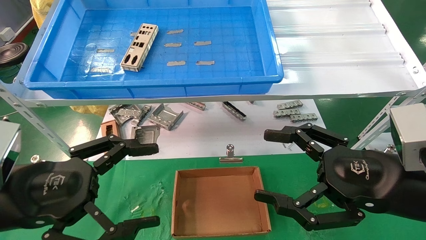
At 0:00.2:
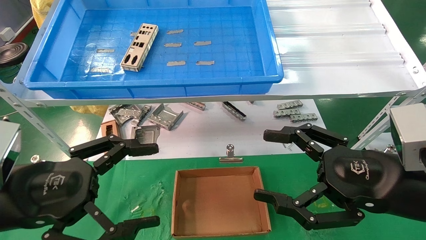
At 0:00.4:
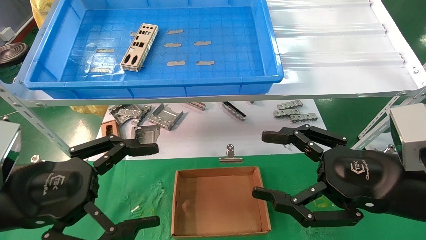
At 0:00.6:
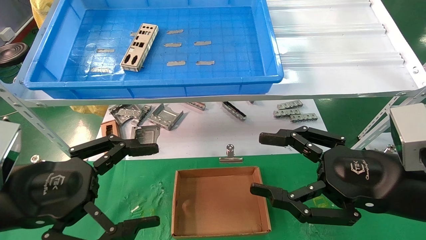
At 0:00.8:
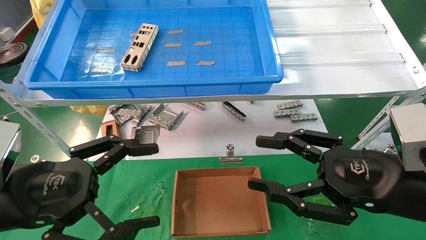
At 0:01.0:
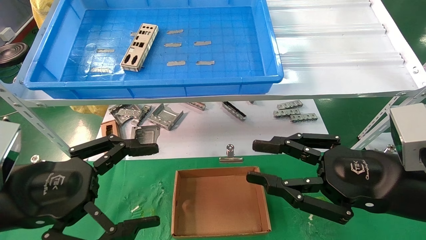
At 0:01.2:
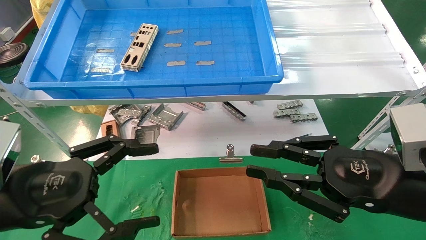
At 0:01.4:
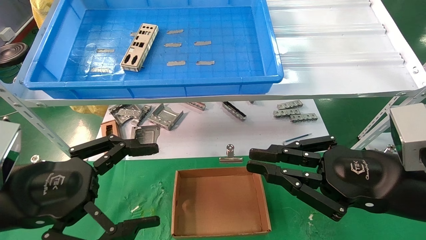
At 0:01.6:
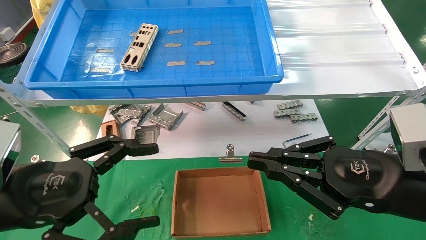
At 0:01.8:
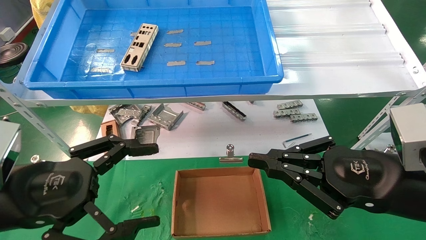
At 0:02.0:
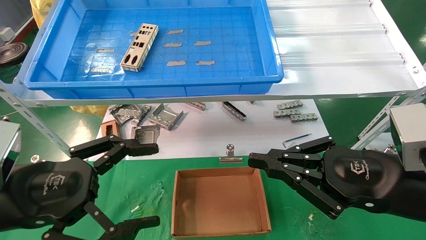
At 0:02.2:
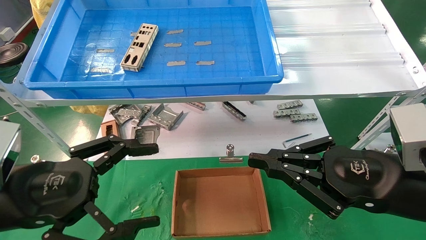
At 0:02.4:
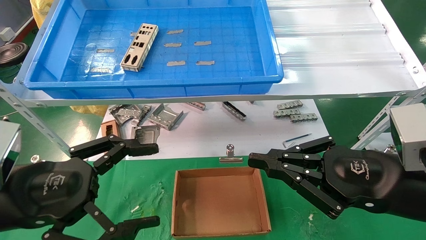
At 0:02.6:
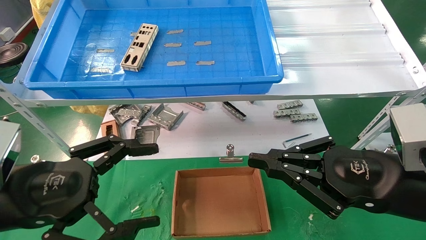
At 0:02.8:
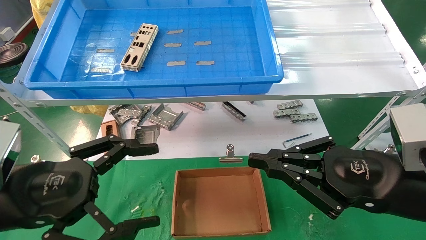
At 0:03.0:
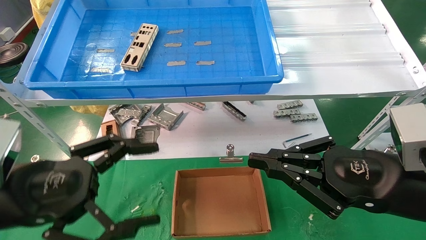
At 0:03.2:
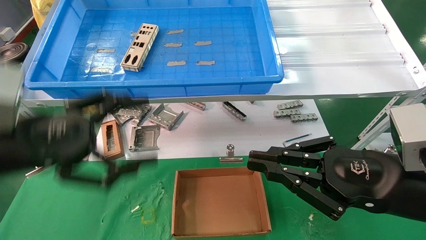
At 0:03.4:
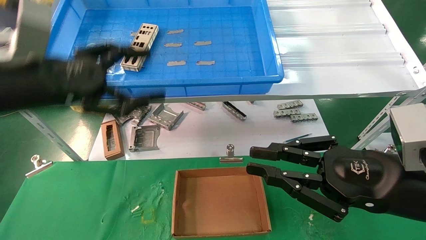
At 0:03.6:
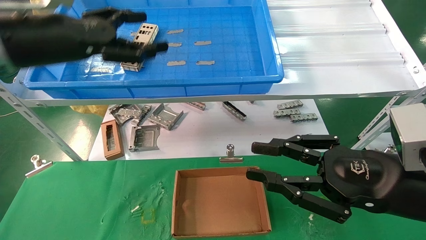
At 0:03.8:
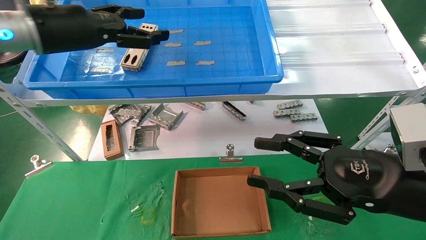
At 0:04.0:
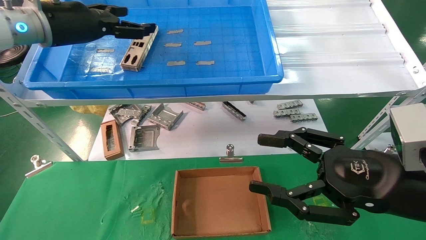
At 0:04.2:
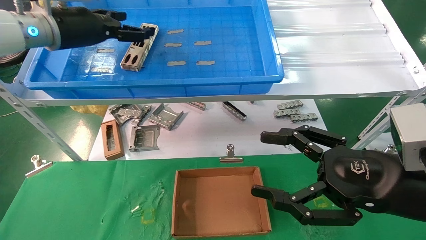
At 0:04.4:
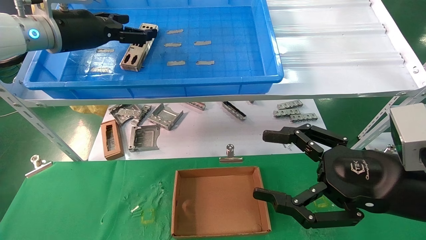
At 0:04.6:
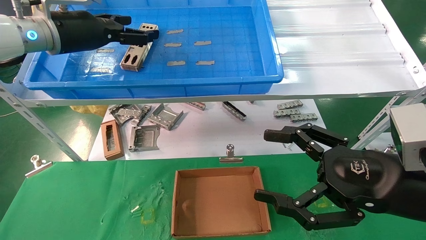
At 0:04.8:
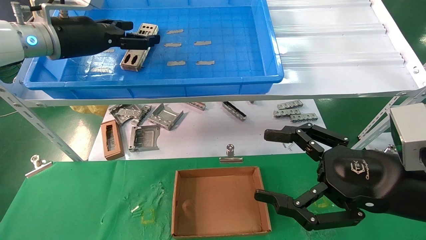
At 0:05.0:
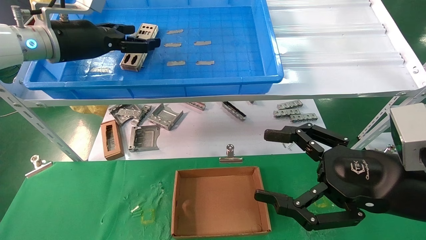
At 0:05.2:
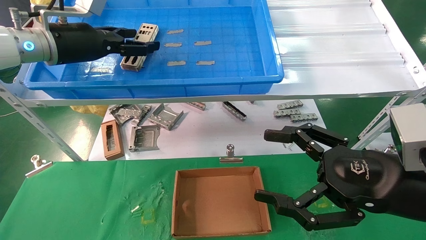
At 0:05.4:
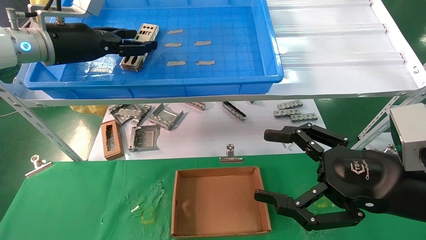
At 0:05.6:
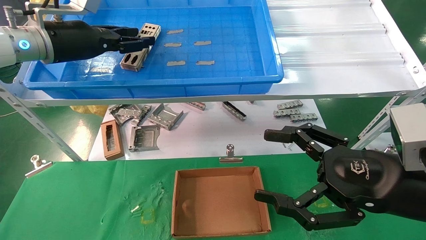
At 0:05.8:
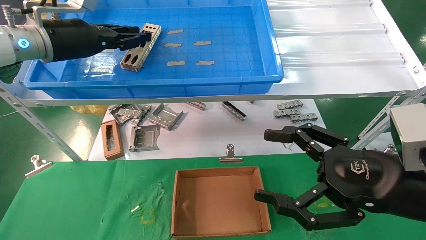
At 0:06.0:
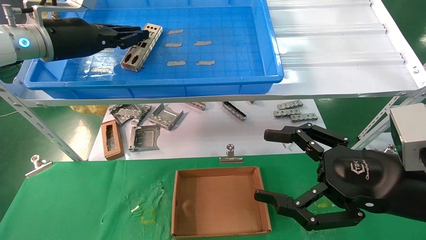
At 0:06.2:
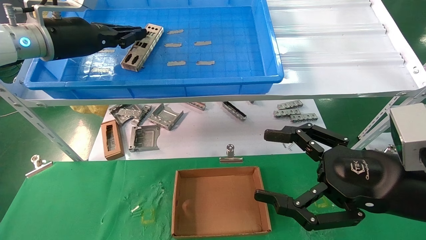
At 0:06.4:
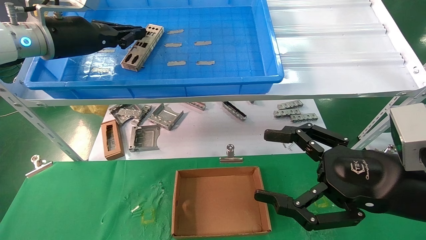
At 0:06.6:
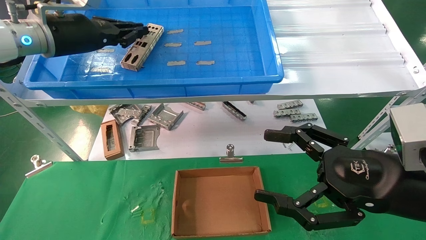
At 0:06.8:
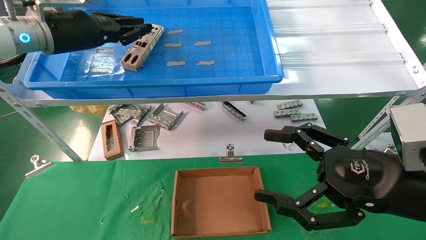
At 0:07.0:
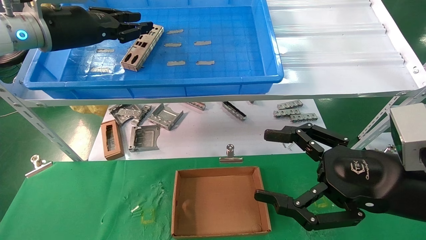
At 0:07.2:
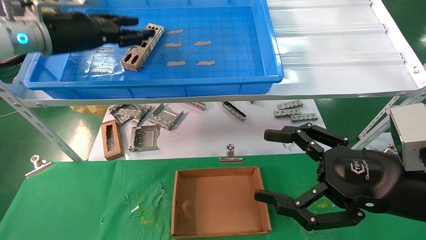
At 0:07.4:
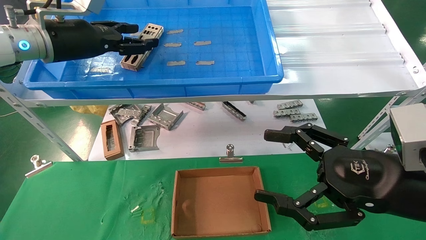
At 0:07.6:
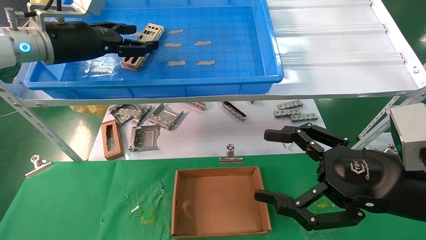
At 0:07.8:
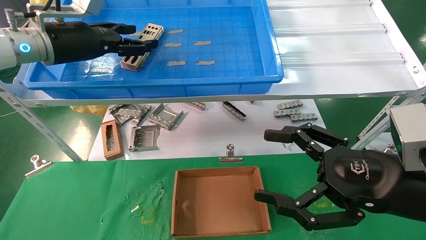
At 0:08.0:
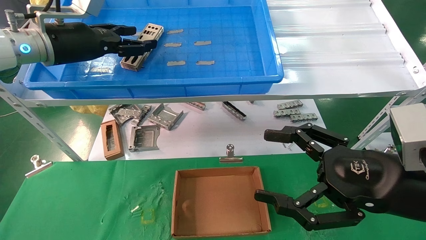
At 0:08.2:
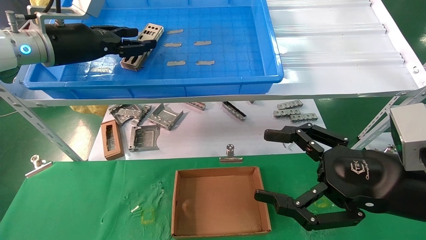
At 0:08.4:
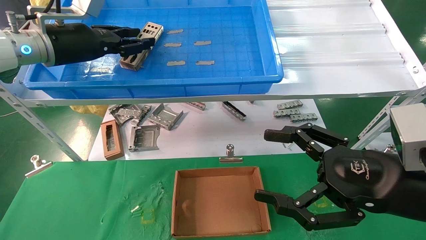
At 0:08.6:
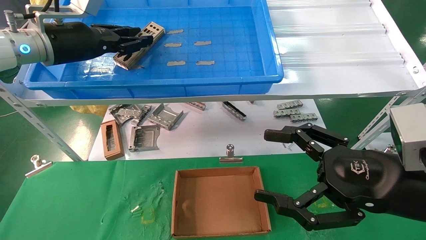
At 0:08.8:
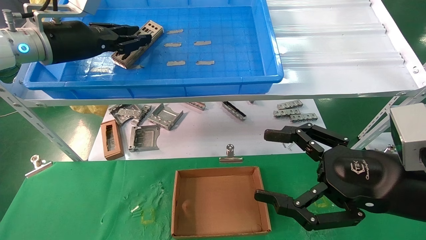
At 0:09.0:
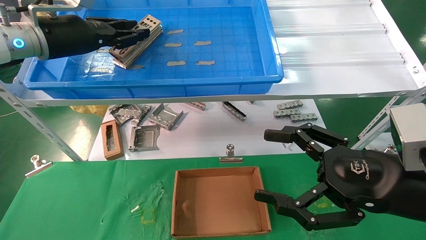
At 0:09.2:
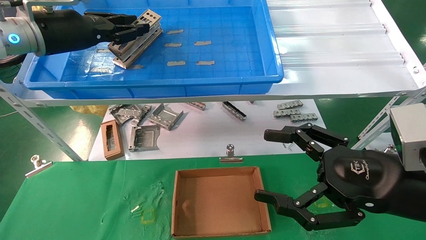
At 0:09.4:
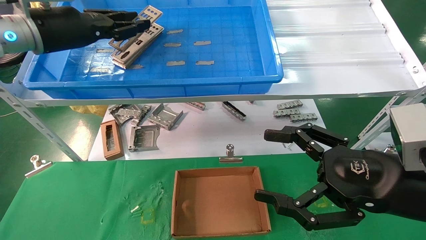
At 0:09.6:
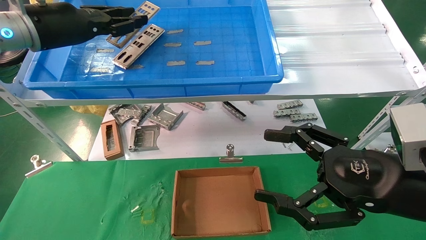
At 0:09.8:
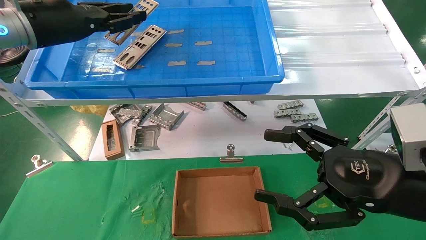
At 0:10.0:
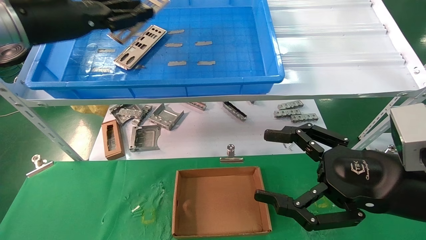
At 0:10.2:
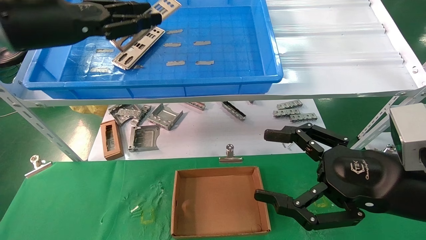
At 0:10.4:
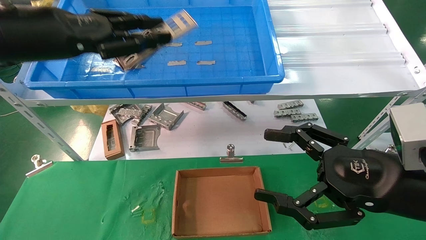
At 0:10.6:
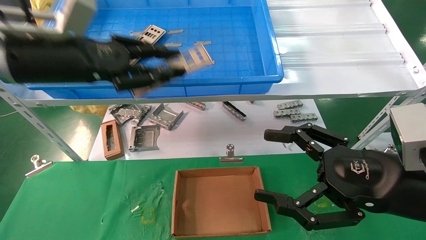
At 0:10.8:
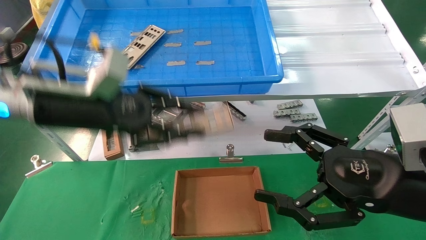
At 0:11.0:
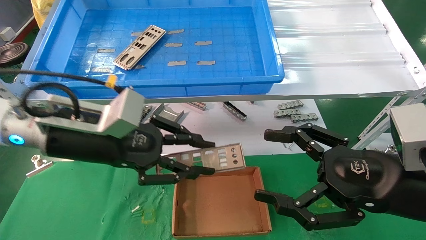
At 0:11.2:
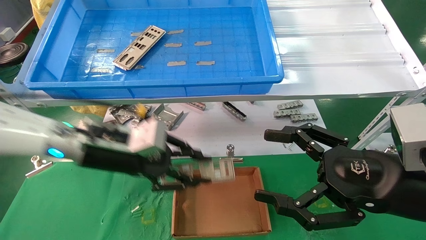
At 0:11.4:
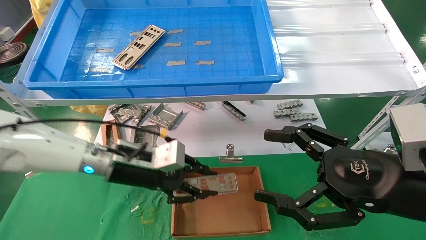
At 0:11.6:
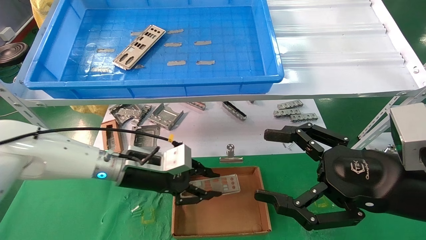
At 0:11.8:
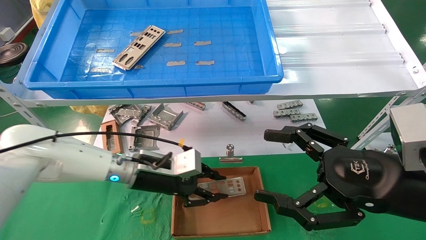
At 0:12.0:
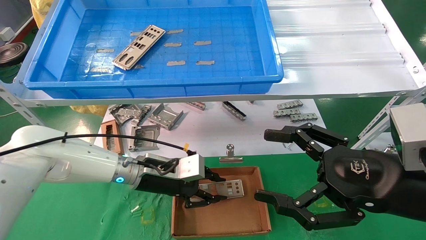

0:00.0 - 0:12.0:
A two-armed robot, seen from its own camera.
Task of the whole recording: pick up the parts on the tray and put them in the cardboard box.
Step, 0:03.6 - 0:08.6: Pick up the IO bracket from the container box.
0:00.0 - 0:01.6: The right gripper closes up.
0:01.6 - 0:03.0: There are only small adjustments of the grippers.
0:03.0 - 0:04.4: The right gripper opens; the left gripper travels forward and upward by about 25 cm.
0:04.4 - 0:06.0: The left gripper closes its fingers.
0:06.0 - 0:07.6: The left gripper opens.
0:07.6 - 0:09.0: The left gripper closes.
0:09.0 - 0:10.4: The left gripper heads backward, covering approximately 10 cm.
0:10.4 - 0:12.0: The left gripper moves downward and to the right, roughly 30 cm.

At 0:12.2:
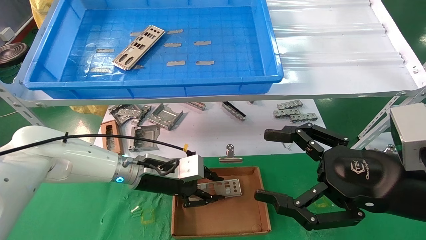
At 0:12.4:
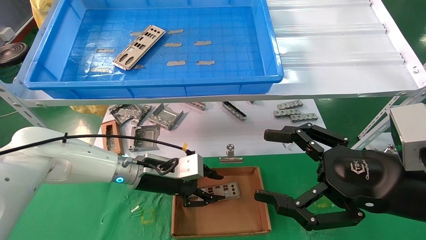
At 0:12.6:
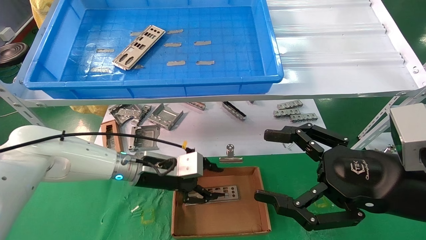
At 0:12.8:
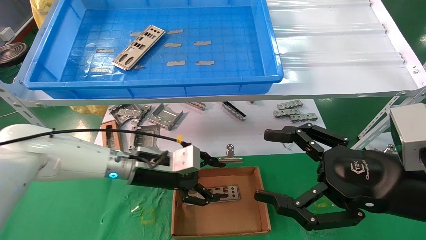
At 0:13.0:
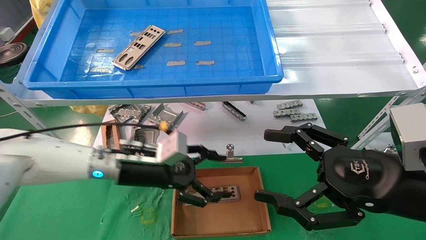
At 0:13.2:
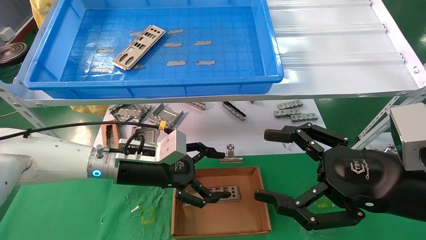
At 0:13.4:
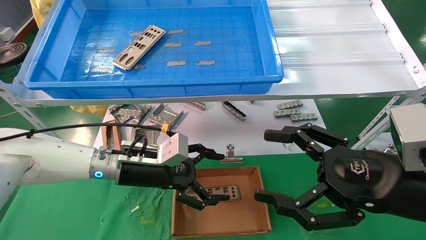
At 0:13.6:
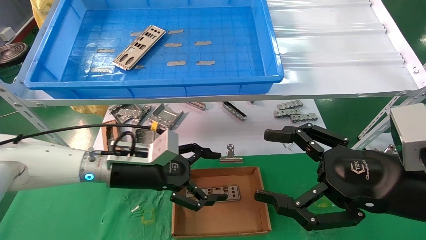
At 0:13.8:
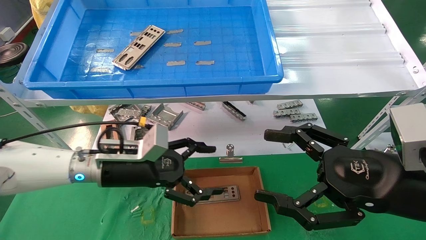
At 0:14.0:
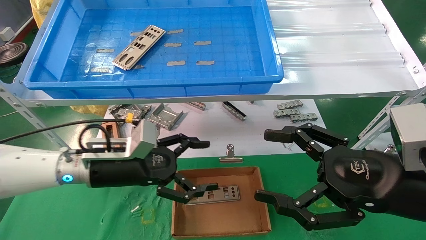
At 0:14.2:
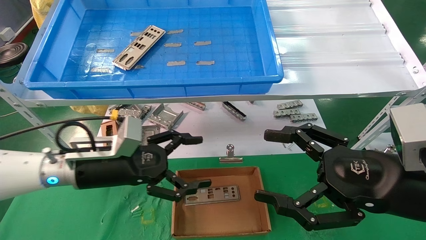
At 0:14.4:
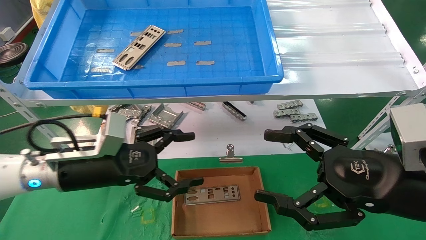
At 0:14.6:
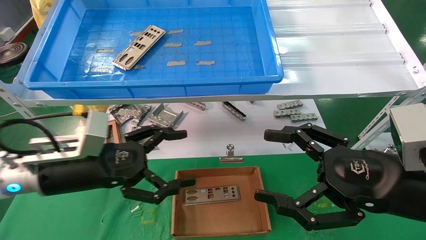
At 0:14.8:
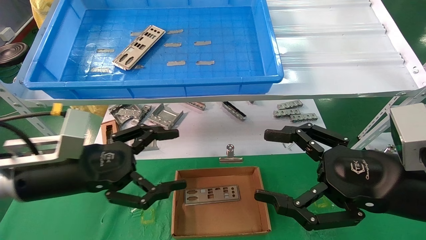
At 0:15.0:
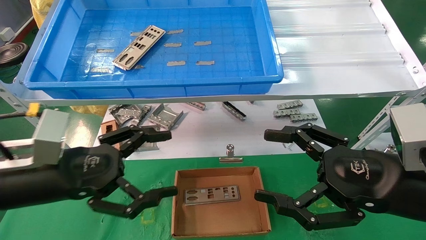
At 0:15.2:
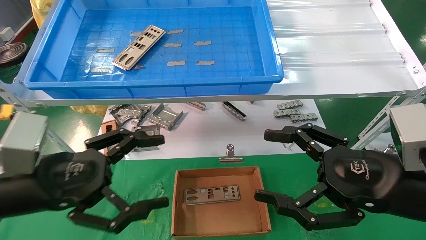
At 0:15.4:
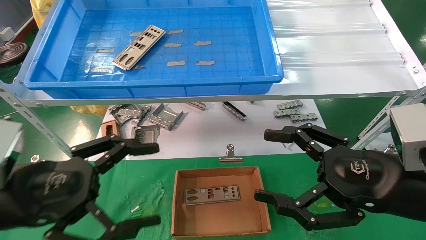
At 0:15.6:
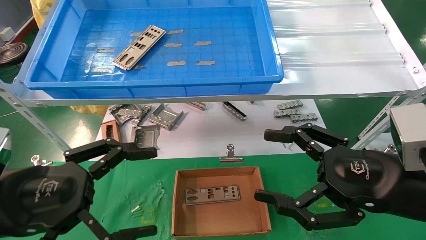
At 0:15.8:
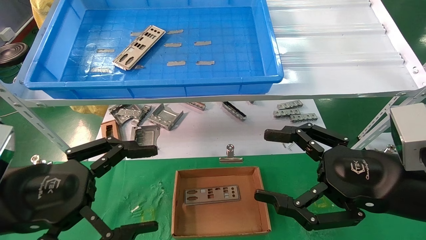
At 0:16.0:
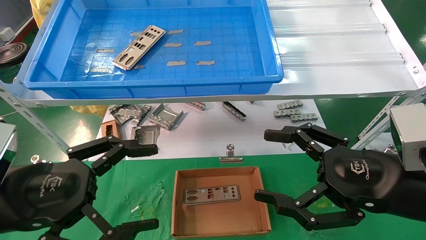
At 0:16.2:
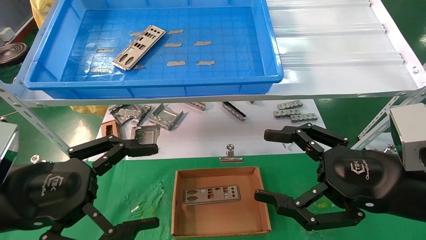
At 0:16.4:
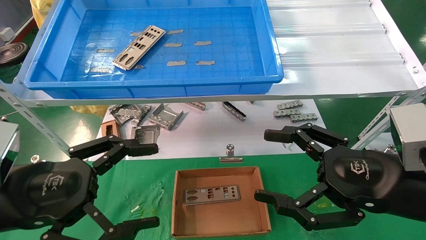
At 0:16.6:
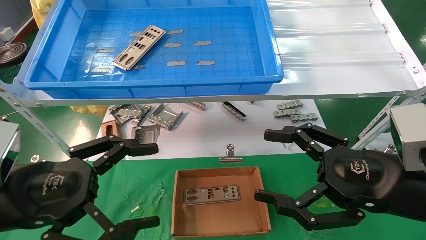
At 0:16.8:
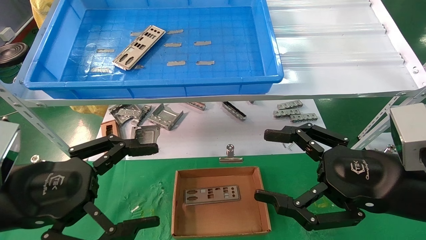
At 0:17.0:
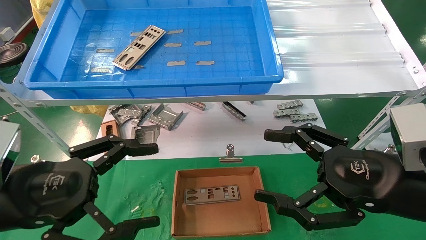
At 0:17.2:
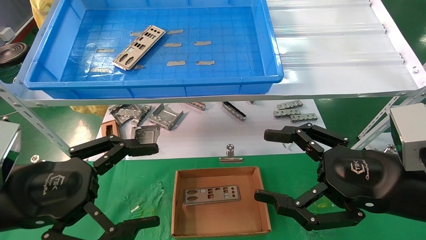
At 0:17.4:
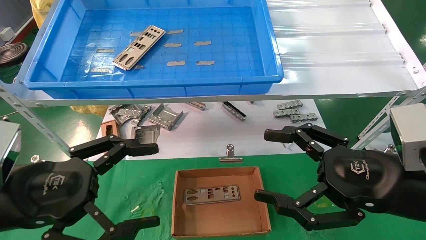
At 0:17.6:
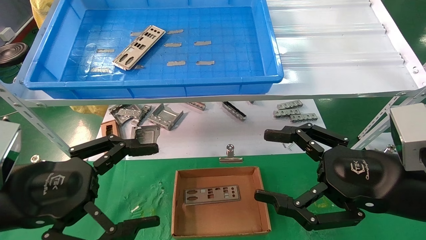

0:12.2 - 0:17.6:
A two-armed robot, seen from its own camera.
Task of the whole recording: pick up the parts on the tray and put them in the cardboard box.
0:12.2 - 0:13.6: The left gripper moves approximately 5 cm, and opens.
0:13.6 - 0:15.0: The left gripper is displaced backward and to the left by roughly 15 cm.
0:15.0 - 0:16.2: The left gripper shifts roughly 5 cm backward.
0:16.2 - 0:17.6: Both grippers stay about where they are.
